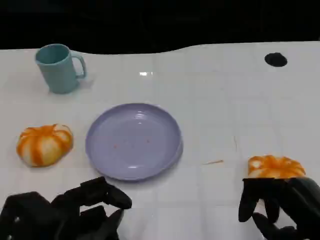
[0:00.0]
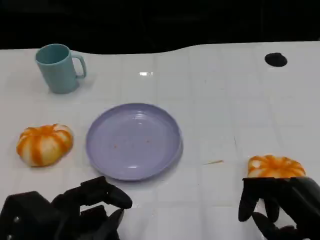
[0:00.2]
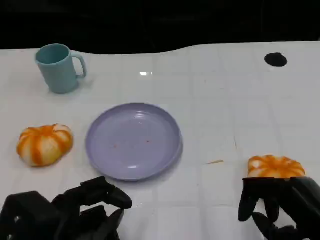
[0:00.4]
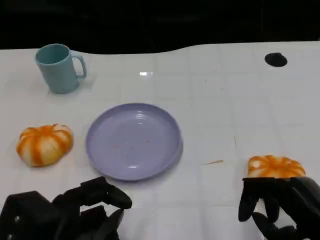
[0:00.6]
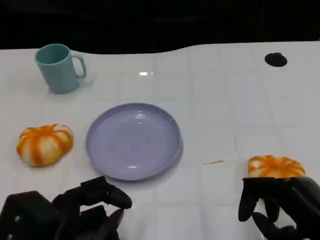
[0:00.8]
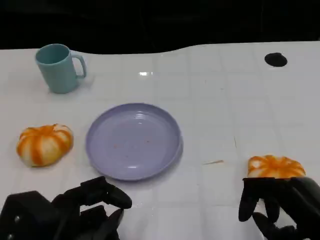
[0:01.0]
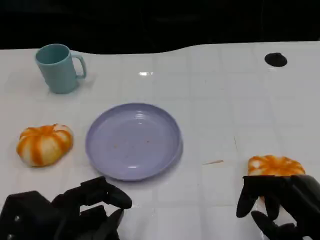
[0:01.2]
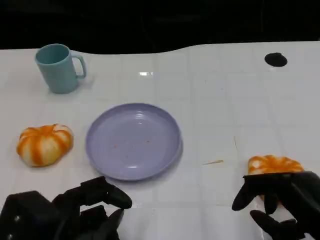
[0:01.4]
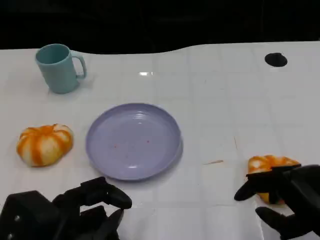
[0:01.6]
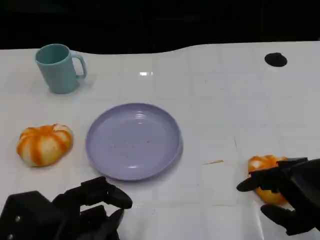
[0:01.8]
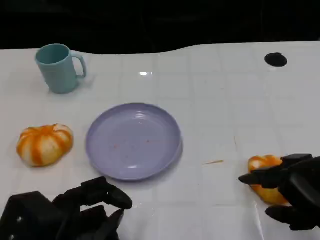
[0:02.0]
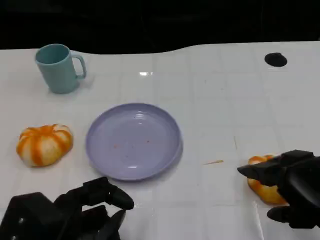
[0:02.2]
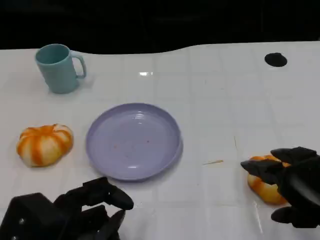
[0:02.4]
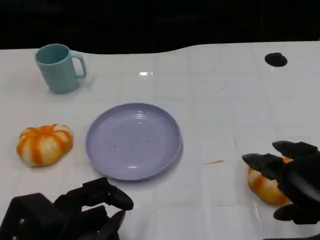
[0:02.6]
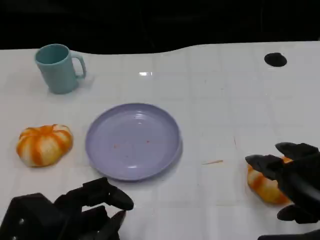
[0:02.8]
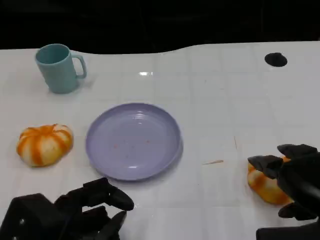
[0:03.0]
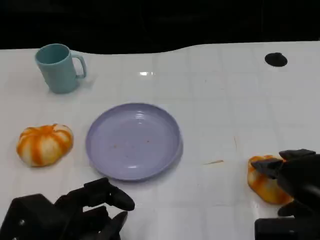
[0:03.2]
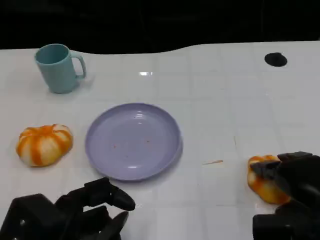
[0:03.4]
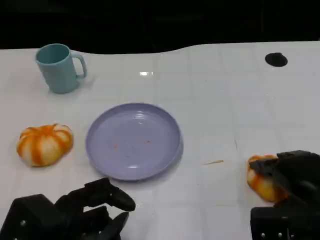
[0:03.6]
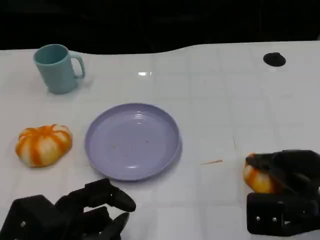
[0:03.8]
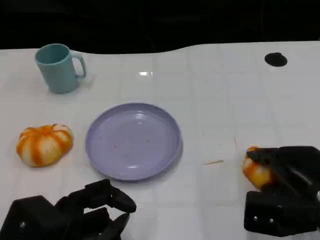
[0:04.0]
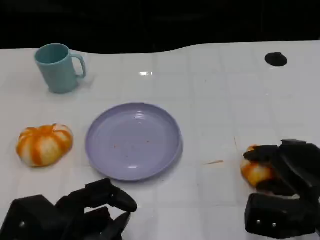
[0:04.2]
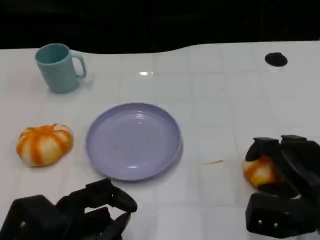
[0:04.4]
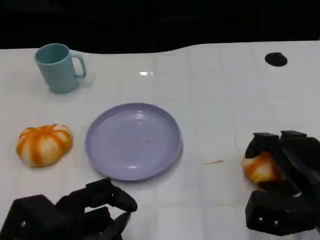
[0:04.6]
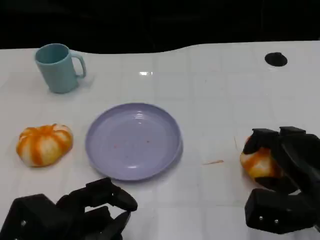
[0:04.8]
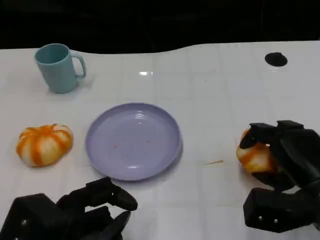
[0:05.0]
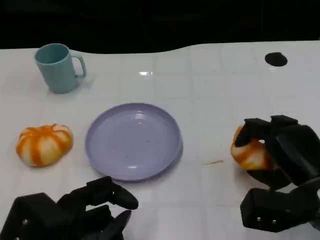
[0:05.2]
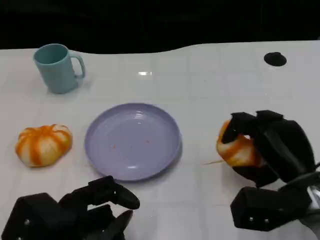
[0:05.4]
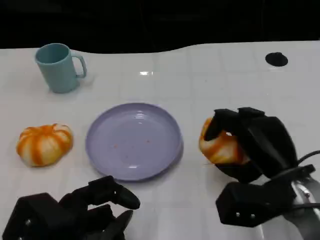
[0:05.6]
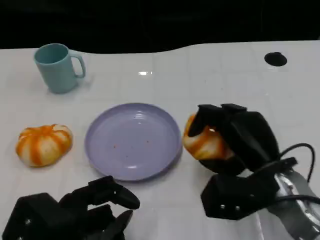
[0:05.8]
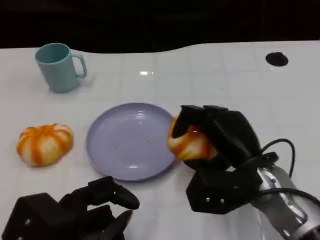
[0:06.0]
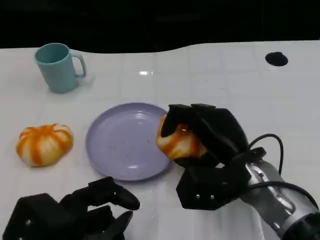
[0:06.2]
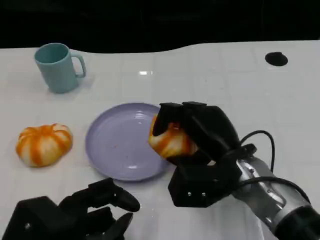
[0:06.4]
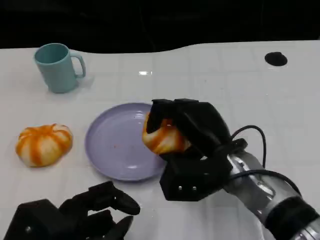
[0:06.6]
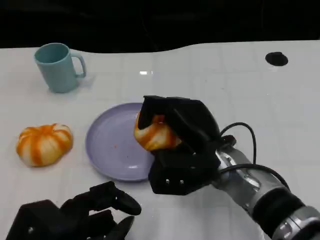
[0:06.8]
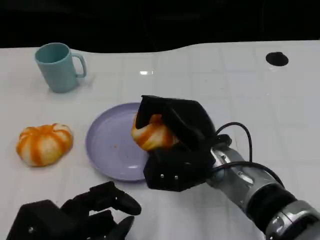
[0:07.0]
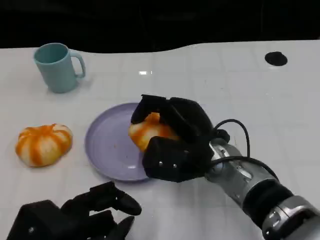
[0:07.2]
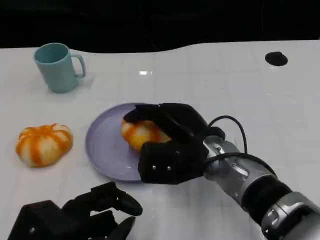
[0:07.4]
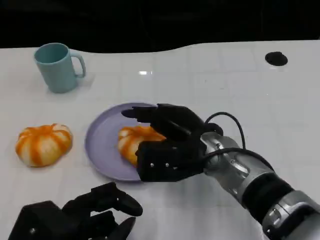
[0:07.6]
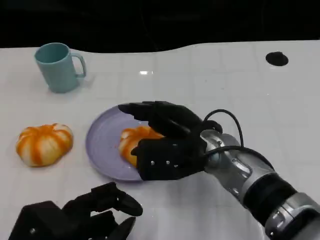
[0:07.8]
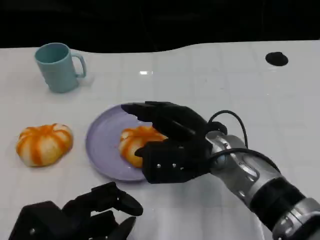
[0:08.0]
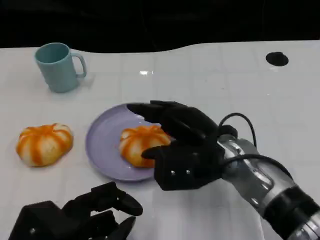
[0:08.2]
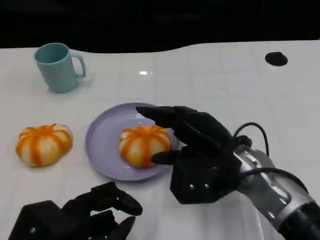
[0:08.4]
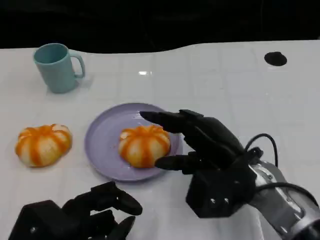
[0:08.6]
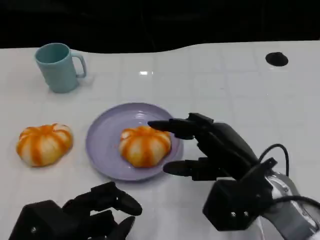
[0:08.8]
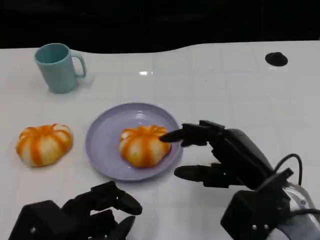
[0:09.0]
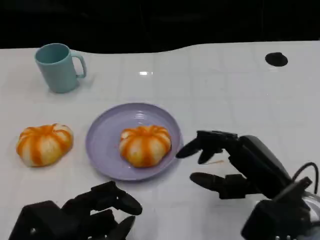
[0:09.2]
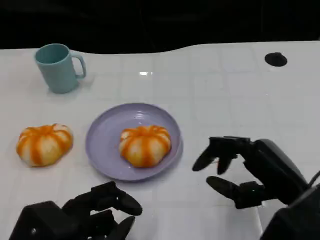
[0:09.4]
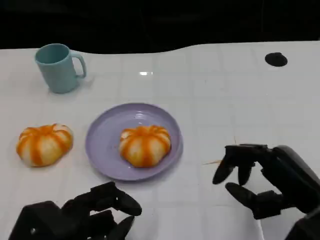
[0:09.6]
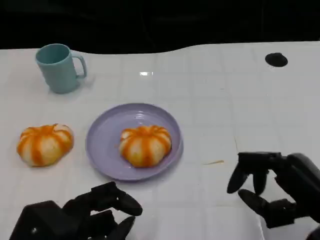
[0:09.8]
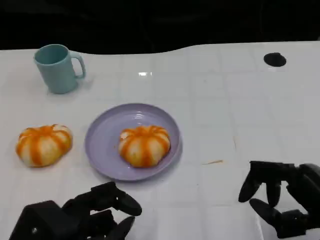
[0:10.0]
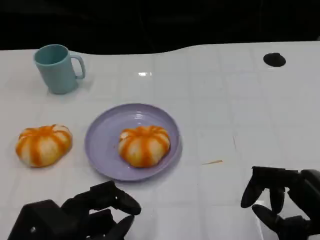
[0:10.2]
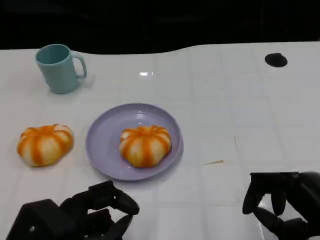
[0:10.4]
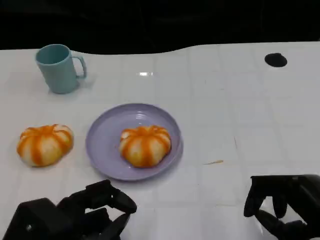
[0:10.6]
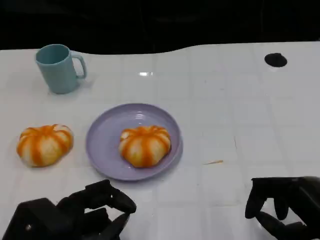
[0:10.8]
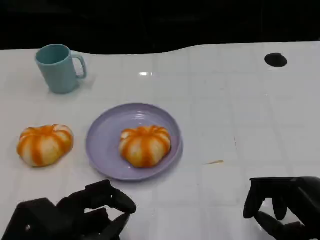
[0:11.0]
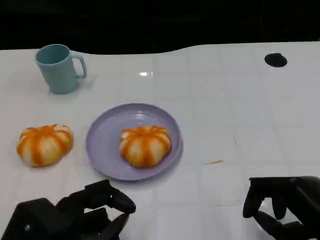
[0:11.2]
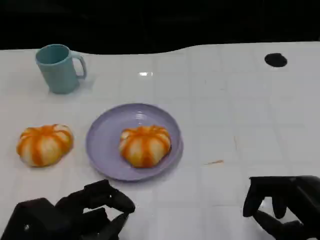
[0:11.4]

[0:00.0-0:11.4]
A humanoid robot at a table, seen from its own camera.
Task of the whole recording: Grasp the bread from the table and place it into the plate.
0:00.0 to 0:01.4: The hands make only small movements.
0:02.8 to 0:04.2: The right hand moves downward and forward, approximately 10 cm.
0:04.2 to 0:05.6: The right hand shifts roughly 5 cm to the left.
0:05.6 to 0:07.2: The right hand is displaced to the left by about 10 cm.
0:07.2 to 0:08.6: The right hand heads to the right, covering roughly 5 cm.
0:08.6 to 0:10.0: The right hand shifts some 15 cm to the right and backward.
0:10.0 to 0:11.4: The hands move only a little.

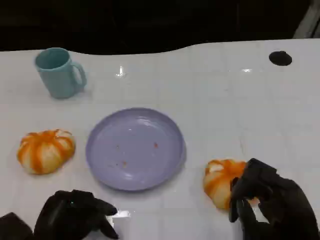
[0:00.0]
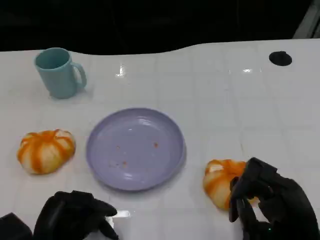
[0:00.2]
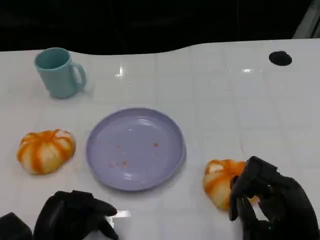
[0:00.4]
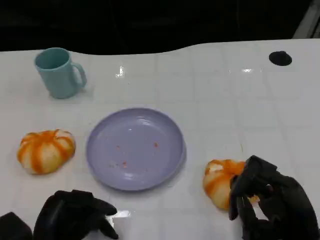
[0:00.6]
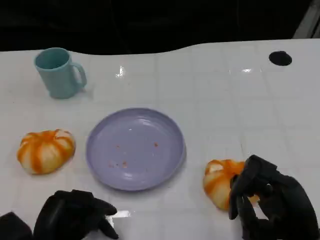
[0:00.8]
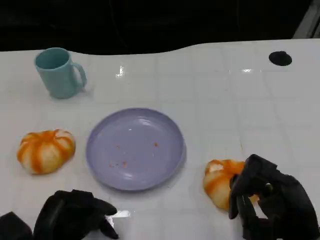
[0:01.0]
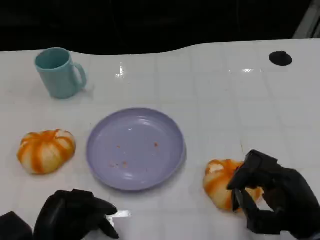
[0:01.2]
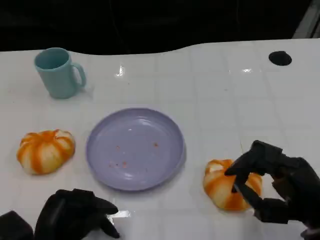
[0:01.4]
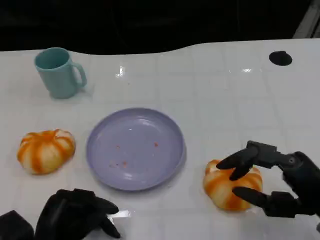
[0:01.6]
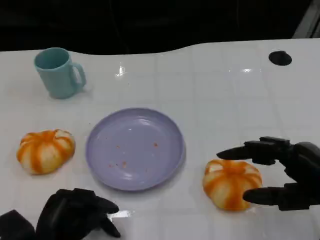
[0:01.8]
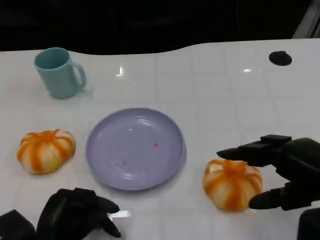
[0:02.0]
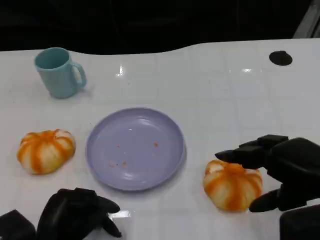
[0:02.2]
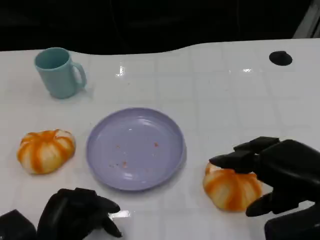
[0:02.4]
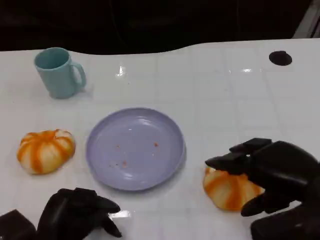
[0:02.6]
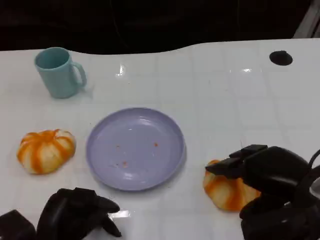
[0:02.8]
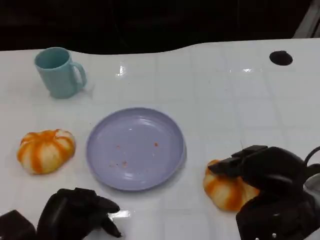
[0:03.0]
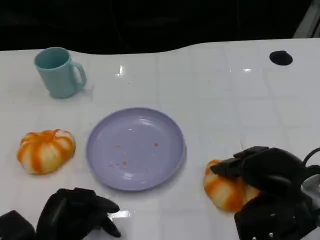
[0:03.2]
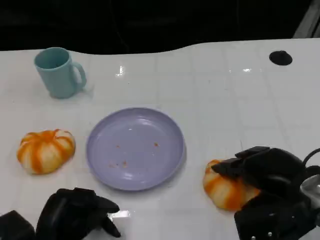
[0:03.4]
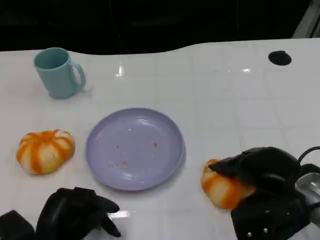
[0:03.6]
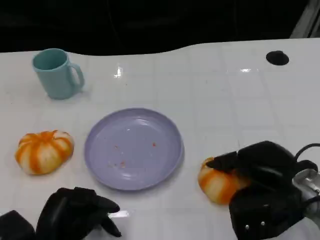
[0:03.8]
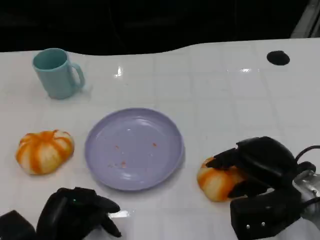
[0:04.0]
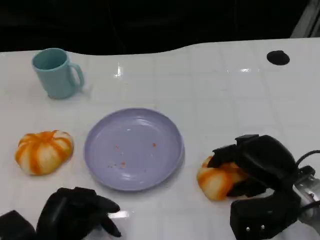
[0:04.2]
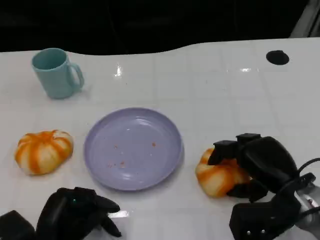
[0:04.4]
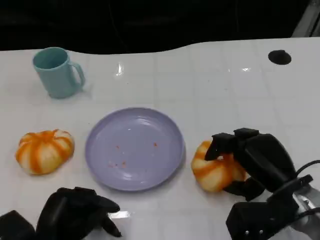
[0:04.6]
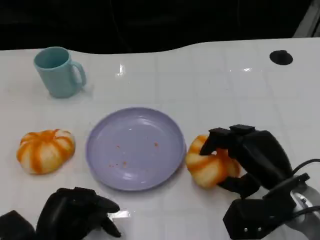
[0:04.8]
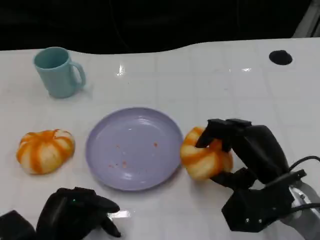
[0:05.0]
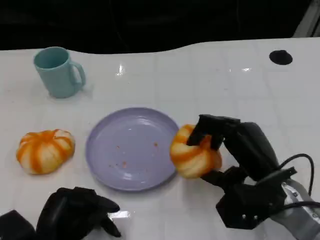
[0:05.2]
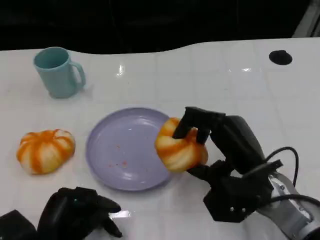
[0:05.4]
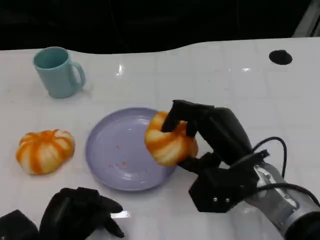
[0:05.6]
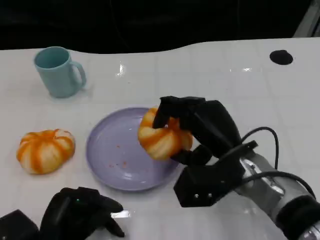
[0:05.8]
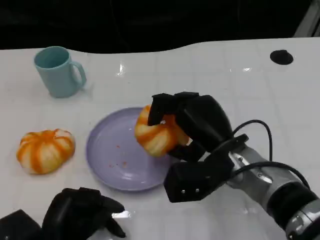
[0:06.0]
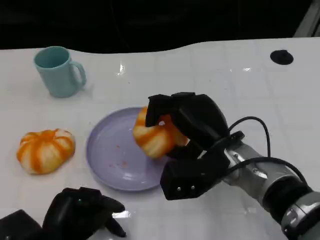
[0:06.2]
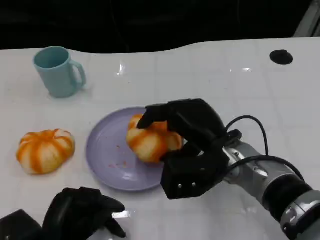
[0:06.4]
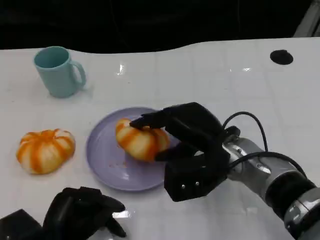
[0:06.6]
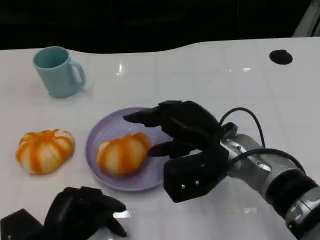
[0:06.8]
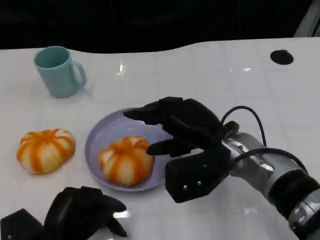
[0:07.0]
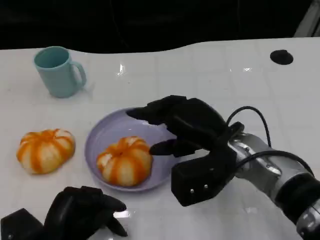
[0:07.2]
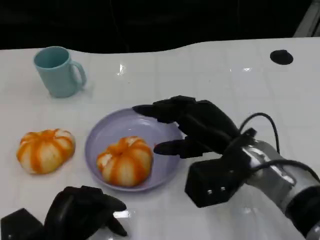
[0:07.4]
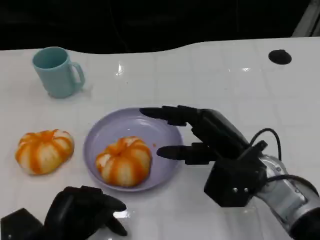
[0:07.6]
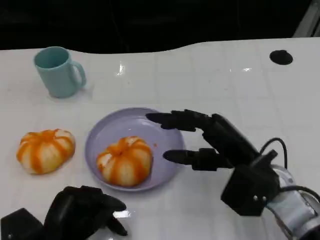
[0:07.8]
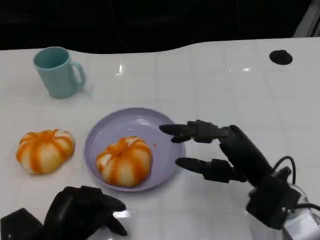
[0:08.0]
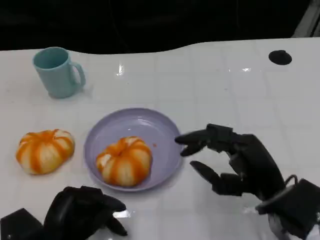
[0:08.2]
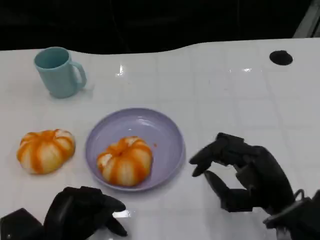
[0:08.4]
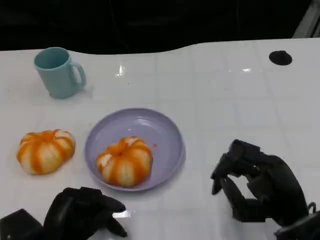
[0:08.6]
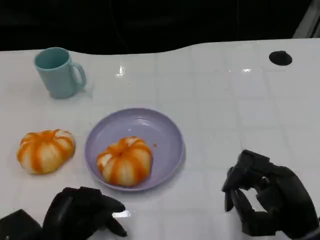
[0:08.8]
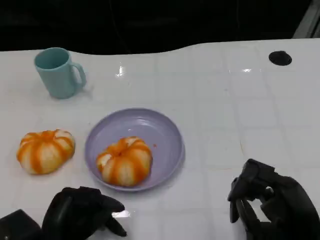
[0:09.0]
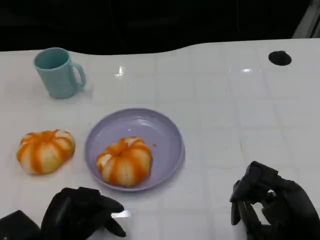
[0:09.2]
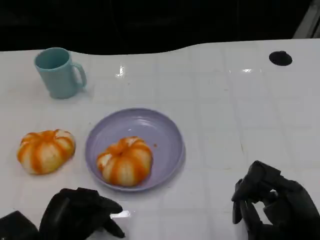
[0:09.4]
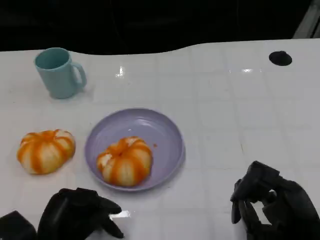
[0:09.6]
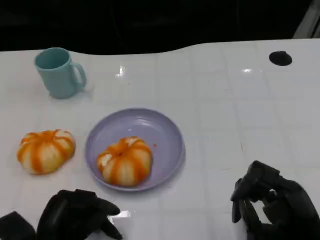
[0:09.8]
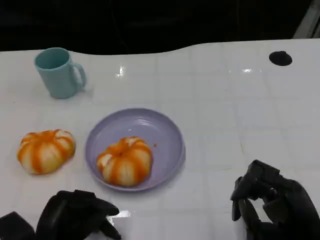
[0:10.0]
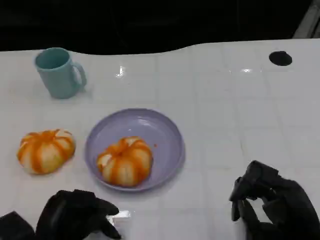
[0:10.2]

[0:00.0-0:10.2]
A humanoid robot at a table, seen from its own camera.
Task of the whole recording: Grasp the bread from the table and place it into the plate.
0:00.0 to 0:01.4: The hands make only small movements.
0:01.4 to 0:03.0: The right hand changes place by some 5 cm.
0:03.0 to 0:04.4: The right hand moves downward, some 5 cm.
0:04.4 to 0:05.8: The right hand moves to the left, roughly 10 cm.
0:07.2 to 0:08.8: The right hand goes about 15 cm backward, to the right and downward.
0:08.8 to 0:10.2: The hands move only a little.

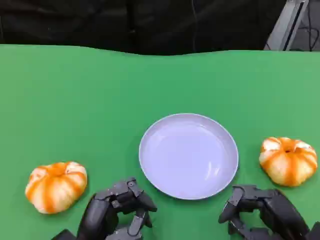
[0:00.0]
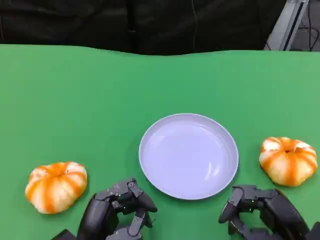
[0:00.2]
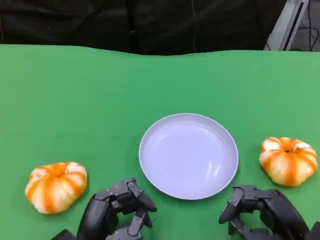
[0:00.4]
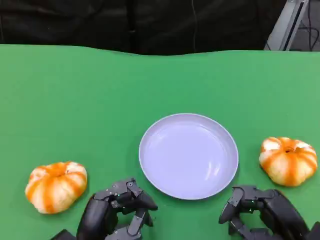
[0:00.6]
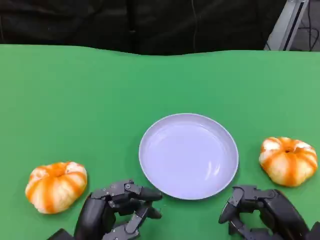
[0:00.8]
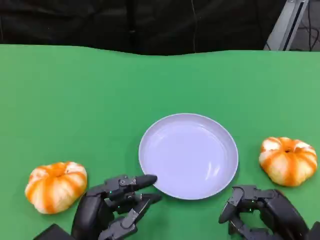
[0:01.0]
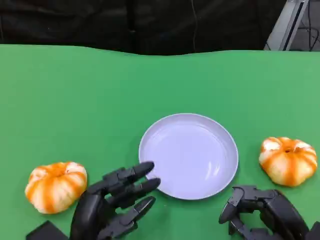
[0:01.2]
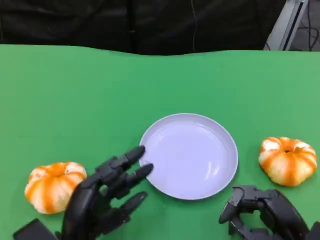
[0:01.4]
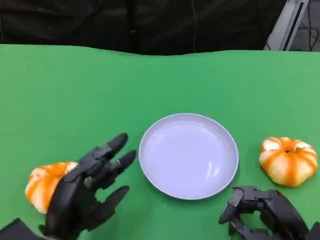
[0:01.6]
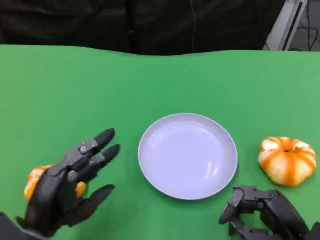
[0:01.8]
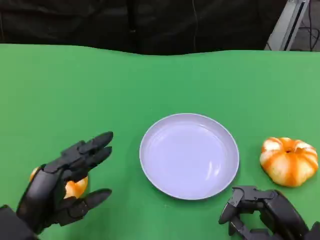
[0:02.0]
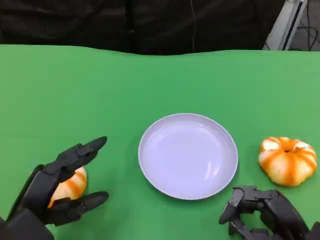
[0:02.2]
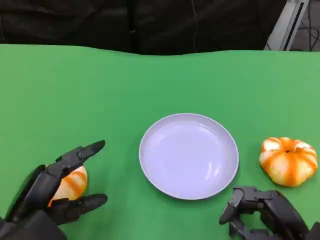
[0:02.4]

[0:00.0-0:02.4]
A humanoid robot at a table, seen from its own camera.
Task of the whole recording: Grasp the bread from the table and place it into the plate.
0:00.0 to 0:01.2: The hands make only small movements.
0:01.2 to 0:02.4: The left hand is displaced to the left by some 10 cm.
